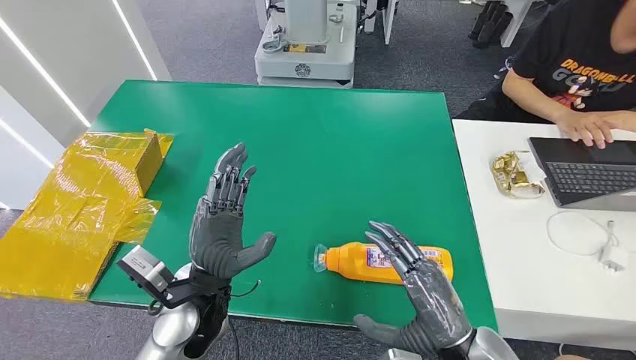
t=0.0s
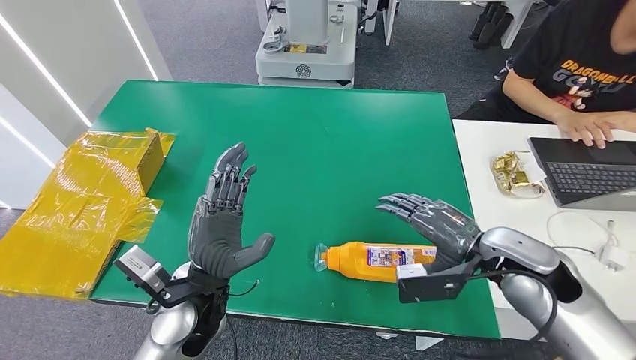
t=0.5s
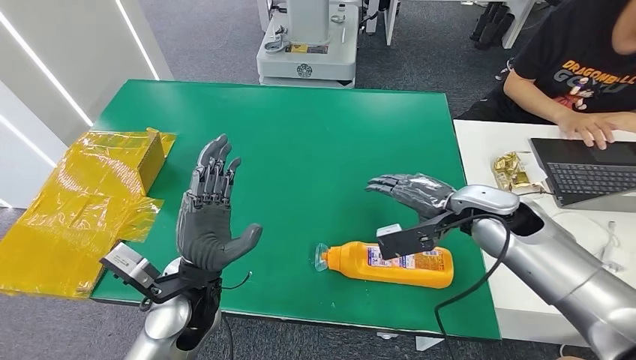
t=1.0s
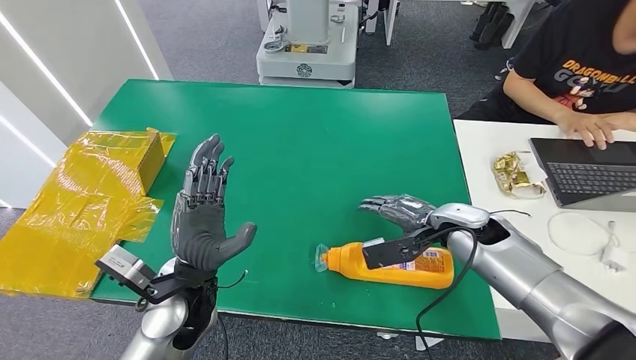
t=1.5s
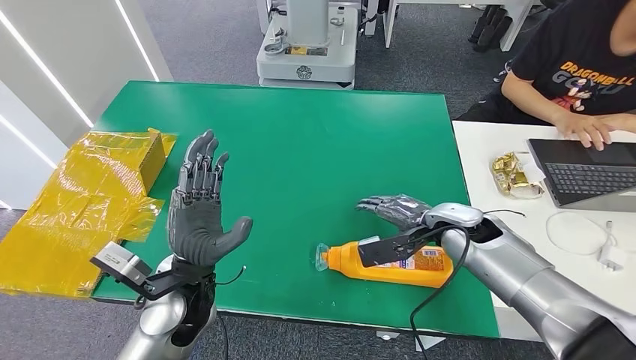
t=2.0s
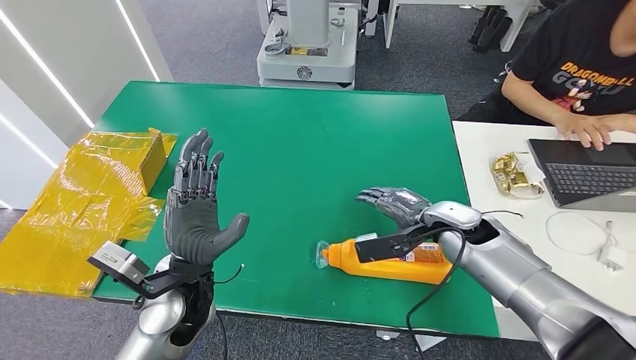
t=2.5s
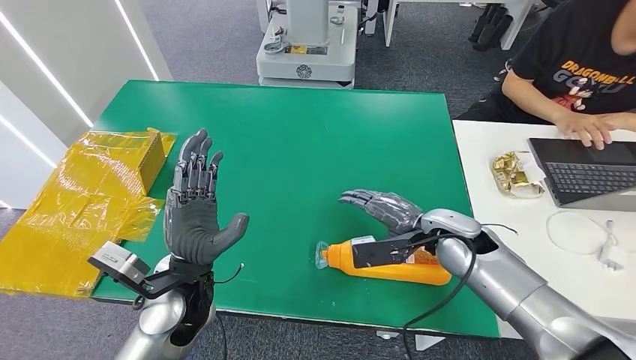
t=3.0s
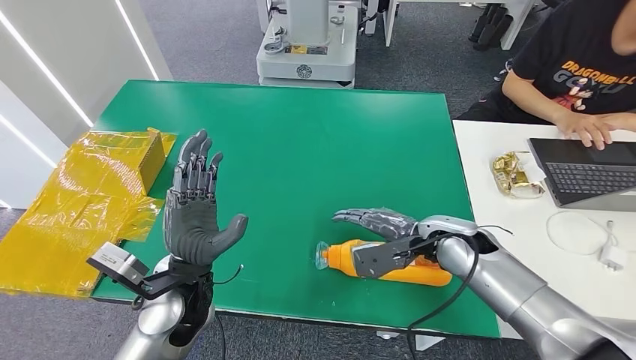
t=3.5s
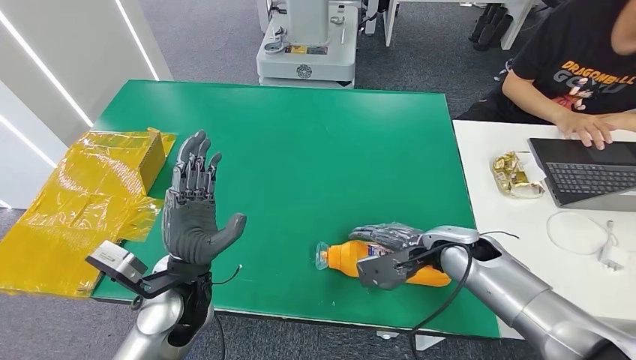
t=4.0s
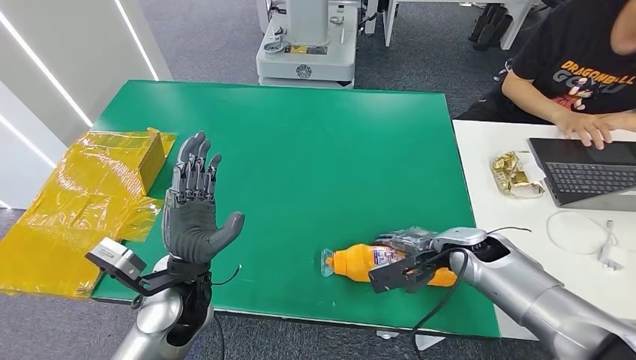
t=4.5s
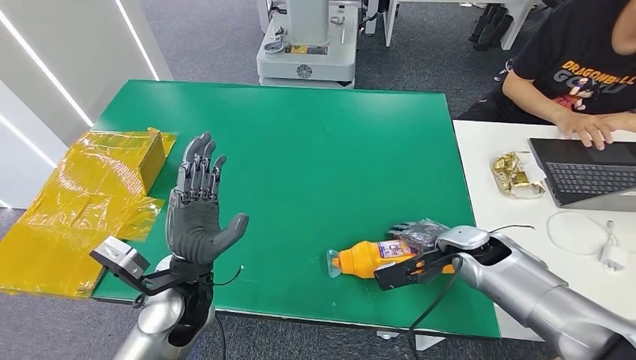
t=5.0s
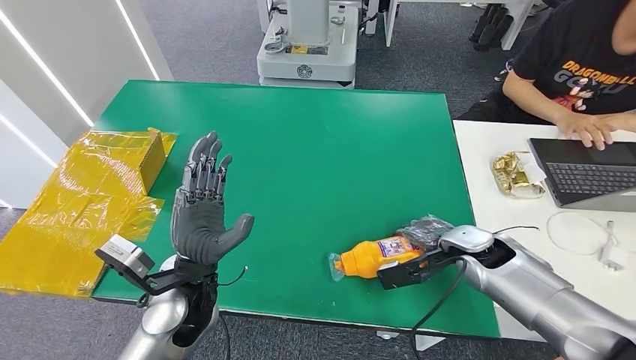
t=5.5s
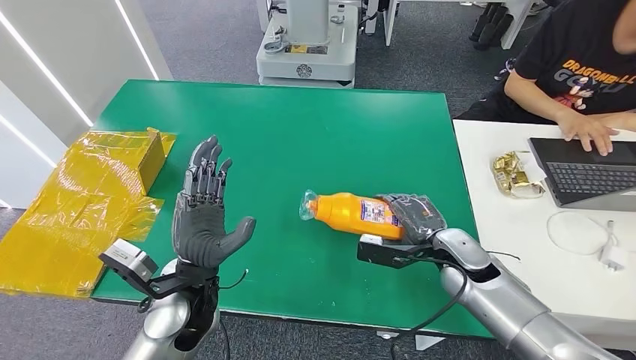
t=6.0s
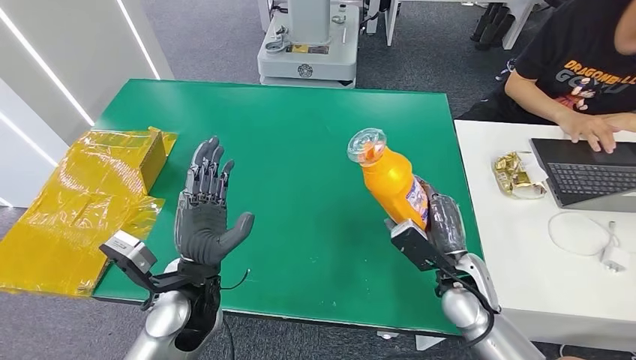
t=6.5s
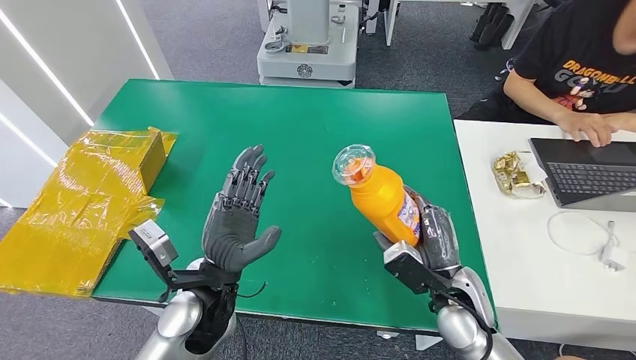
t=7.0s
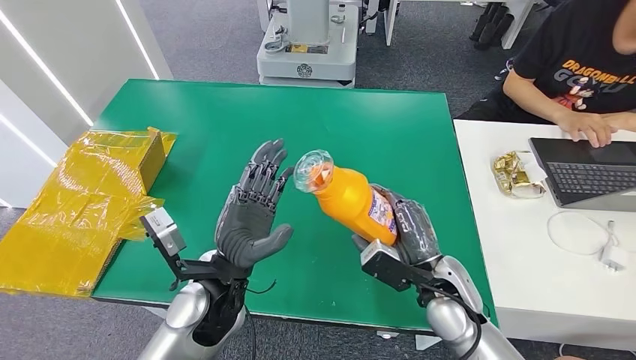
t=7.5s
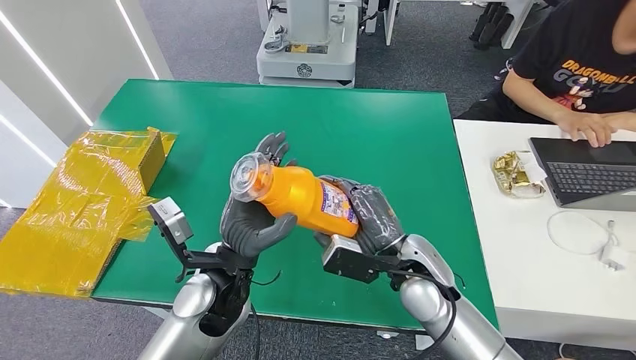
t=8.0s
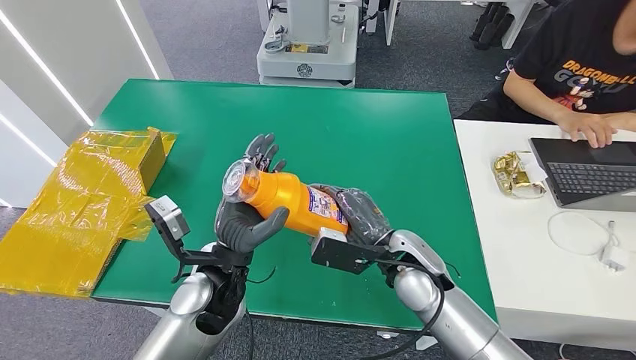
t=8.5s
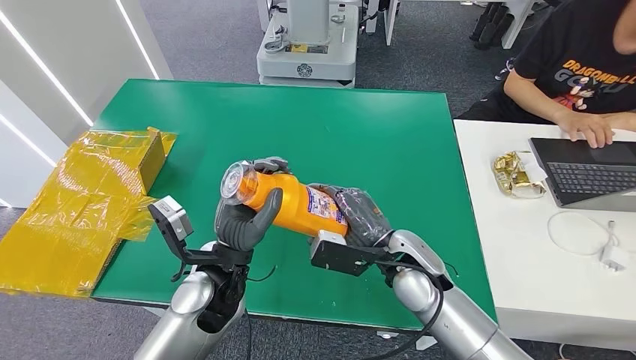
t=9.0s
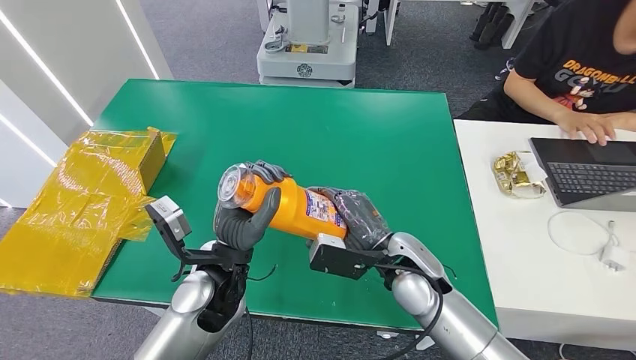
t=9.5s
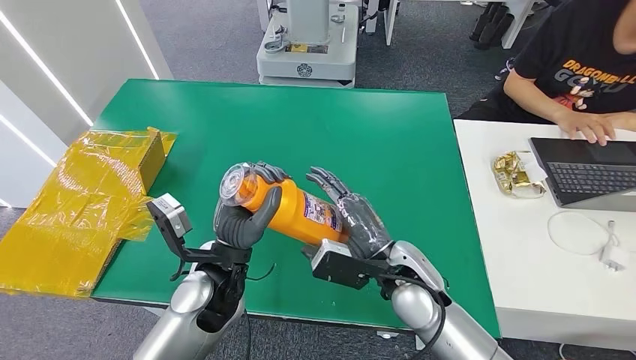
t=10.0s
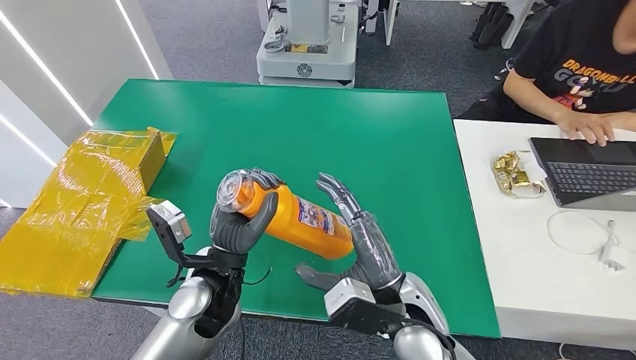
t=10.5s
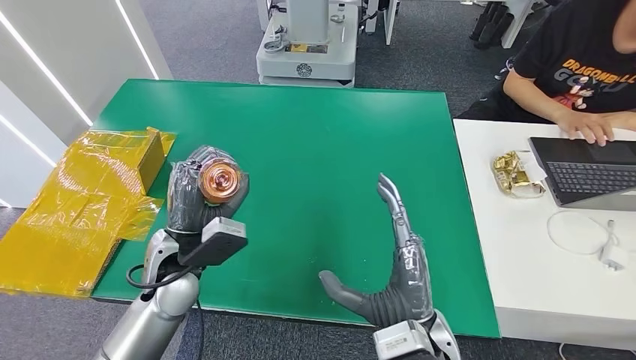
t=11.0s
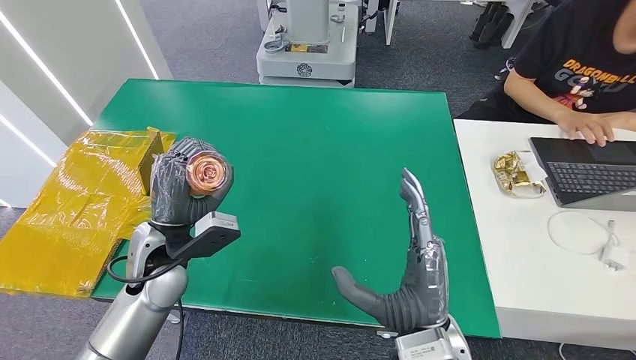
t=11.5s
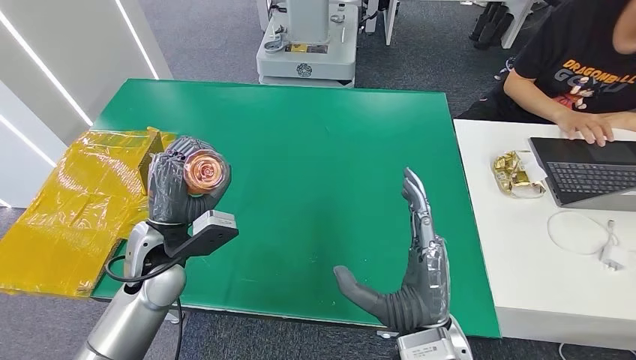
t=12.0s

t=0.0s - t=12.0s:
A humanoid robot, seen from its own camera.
Step, t=0.0s - t=6.5s: Pick up the bottle from the table.
t=6.0s - t=8.0s: The left hand ends up roughly 5 cm from where it was. Meanwhile the right hand moves to the left, about 10 cm.
t=8.0s - t=10.0s: The hands stay close to where they were, moving slightly.
t=10.0s - t=12.0s: The left hand heads to the left, covering some 10 cm, while the right hand travels backward by roughly 10 cm.

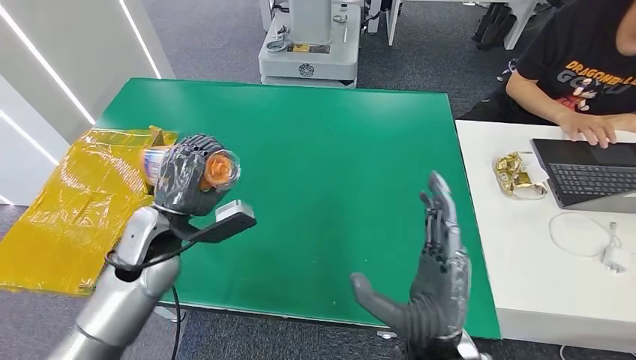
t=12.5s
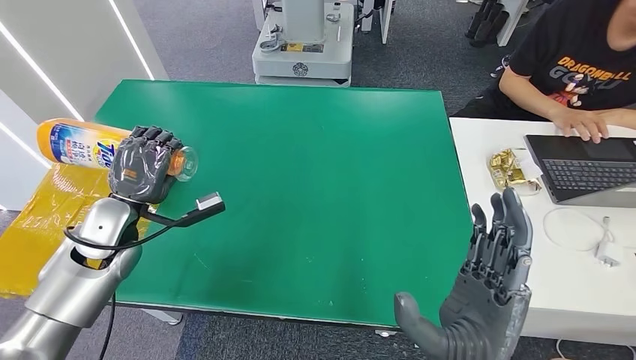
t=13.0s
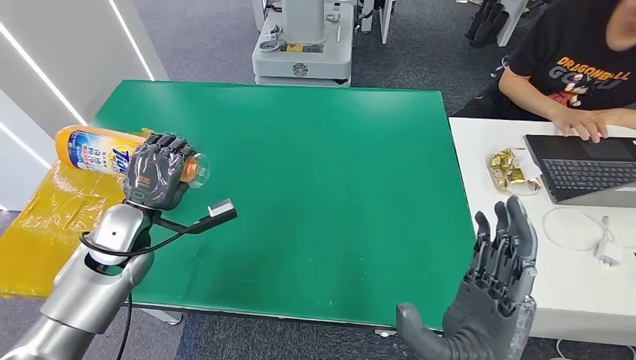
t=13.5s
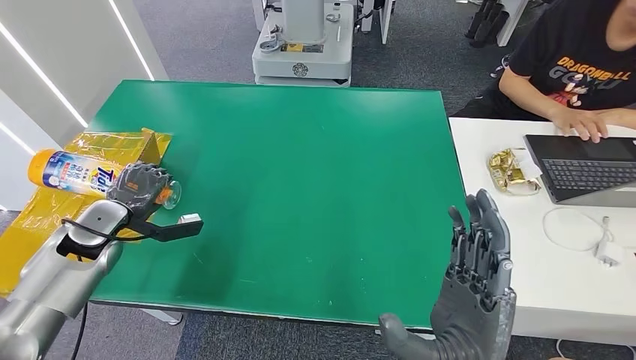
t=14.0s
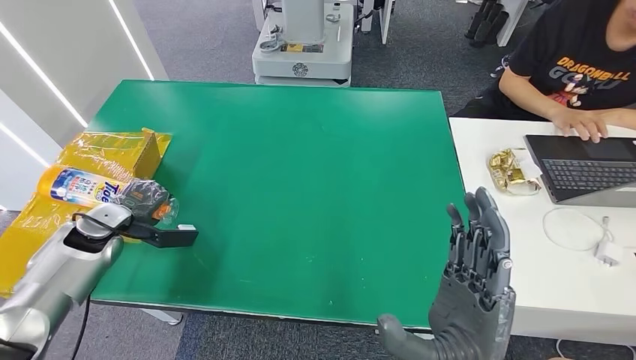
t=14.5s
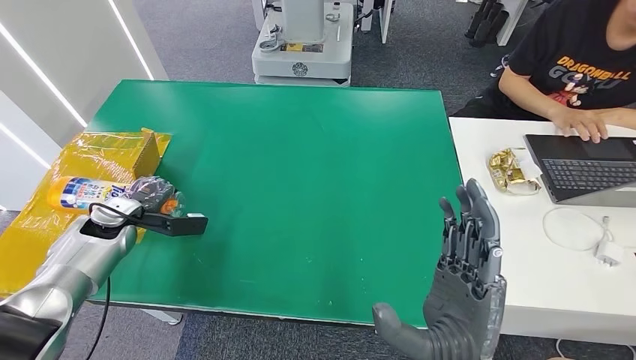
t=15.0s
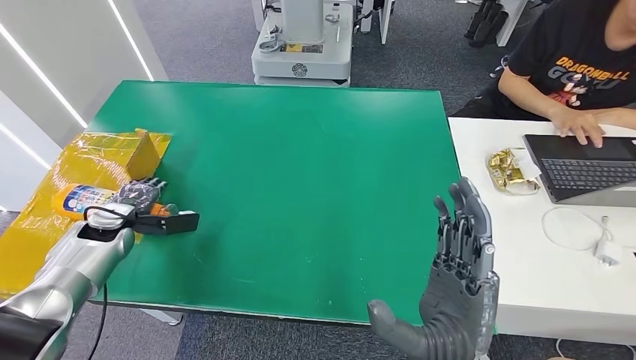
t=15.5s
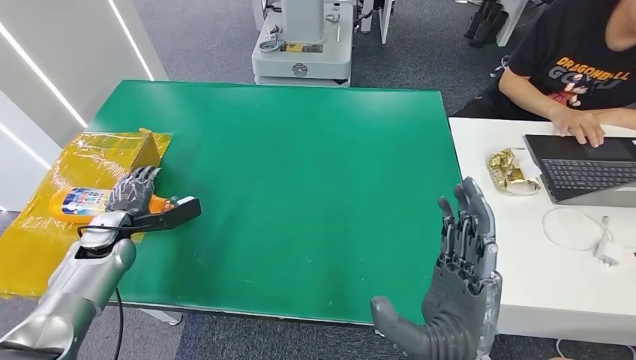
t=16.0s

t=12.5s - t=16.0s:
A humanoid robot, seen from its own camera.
Step, t=12.5s - t=16.0s: Turn the bottle to the front side.

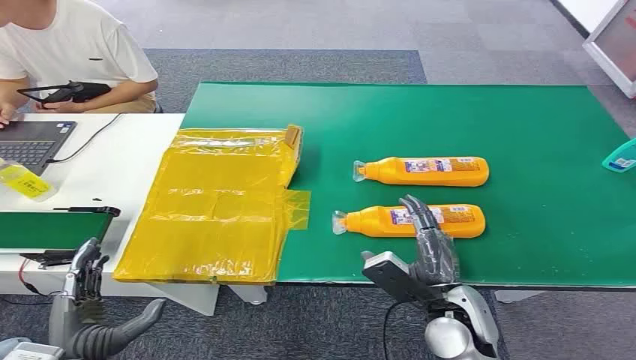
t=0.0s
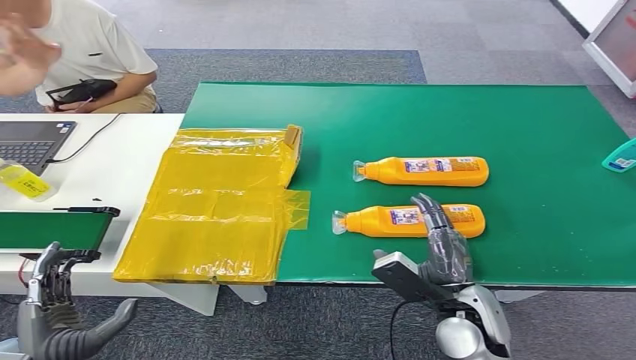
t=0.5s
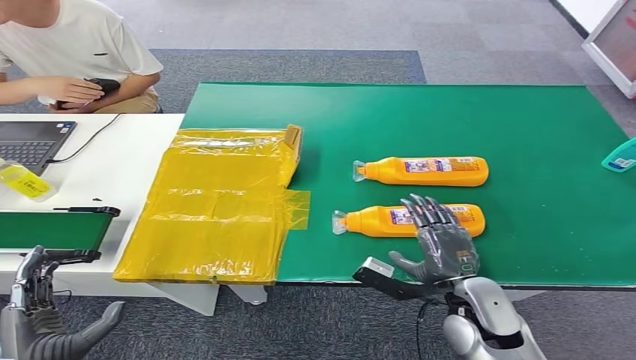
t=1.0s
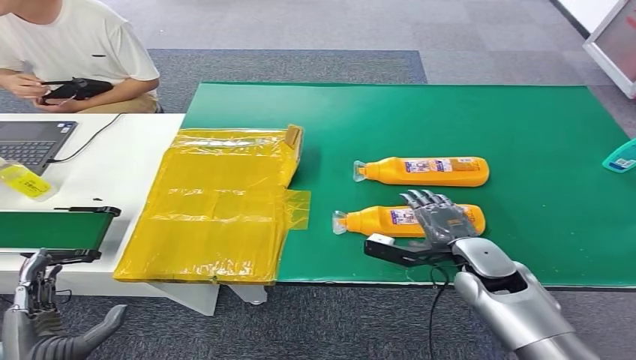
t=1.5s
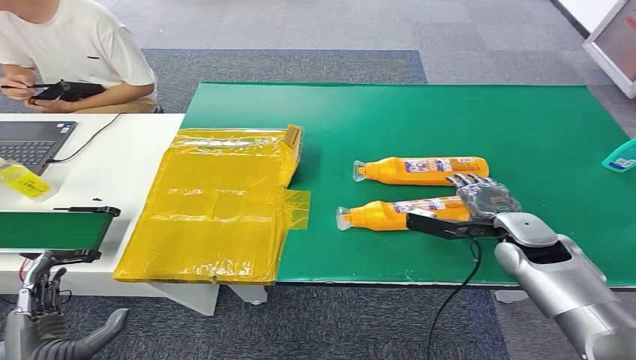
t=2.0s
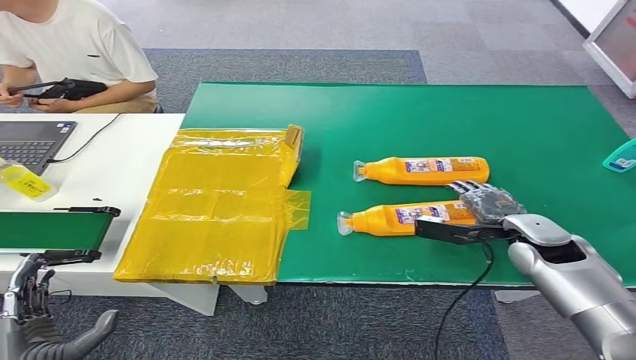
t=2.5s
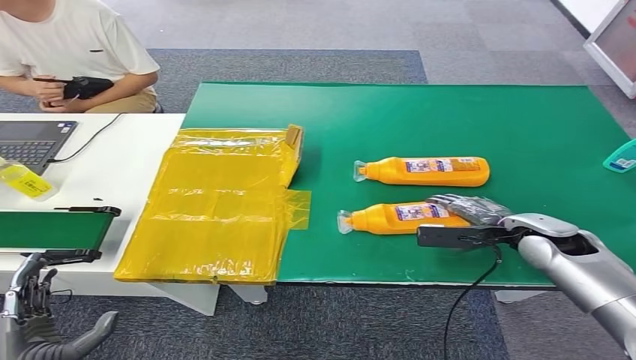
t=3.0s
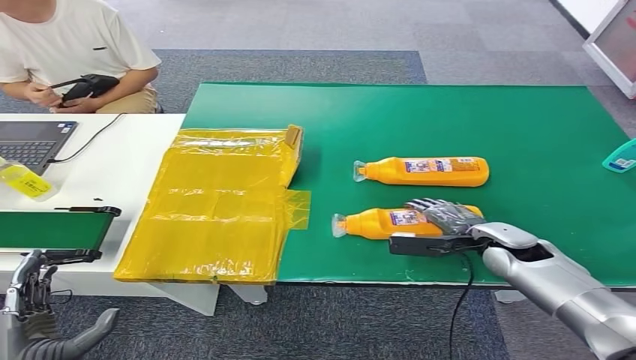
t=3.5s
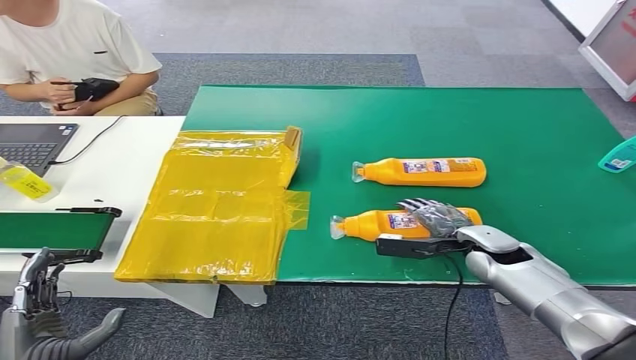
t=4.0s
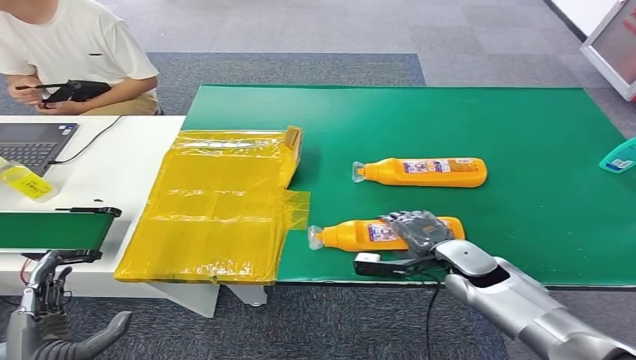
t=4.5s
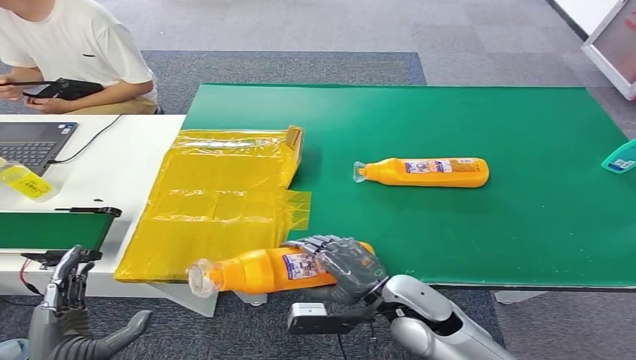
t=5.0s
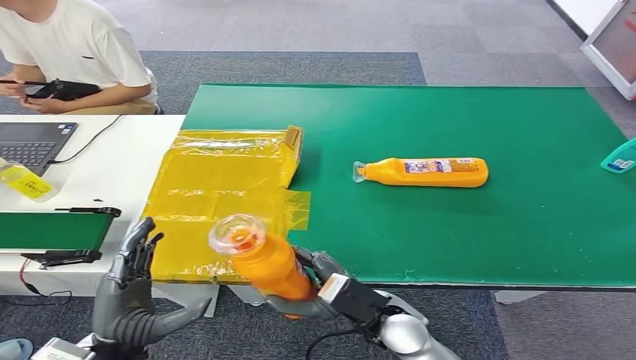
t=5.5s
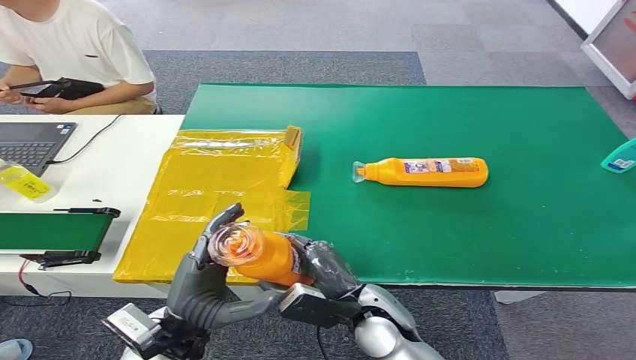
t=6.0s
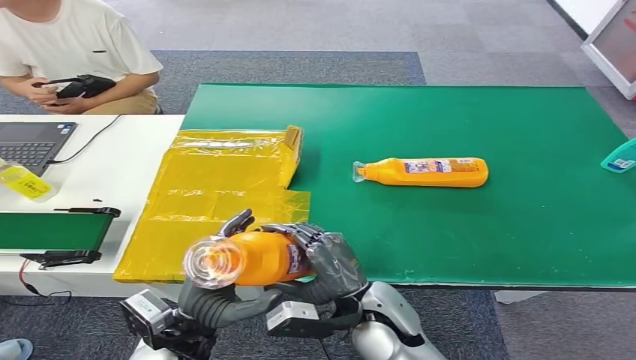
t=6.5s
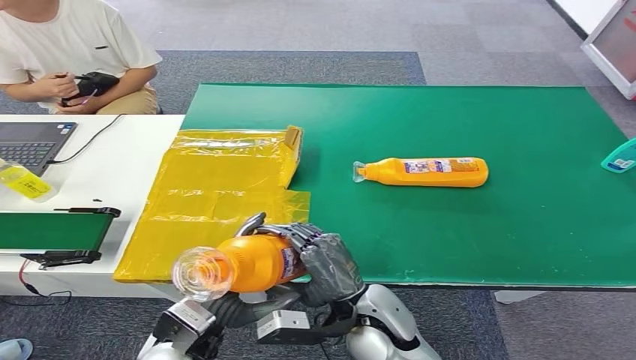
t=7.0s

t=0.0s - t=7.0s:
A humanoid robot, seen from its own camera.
Step, t=0.0s - t=6.5s: Pick up the bottle from the table.
t=5.0s - t=7.0s: The right hand is displaced to the left by roughly 5 cm, while the left hand moves to the right and forward, roughly 15 cm.
